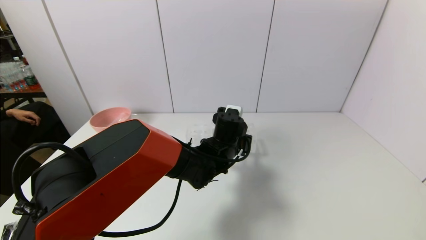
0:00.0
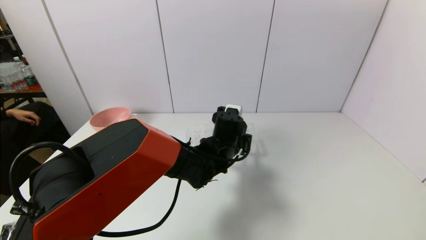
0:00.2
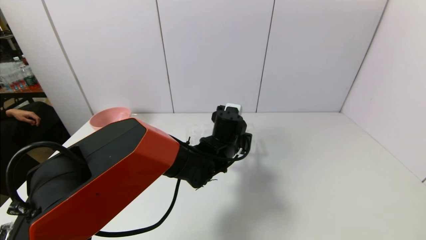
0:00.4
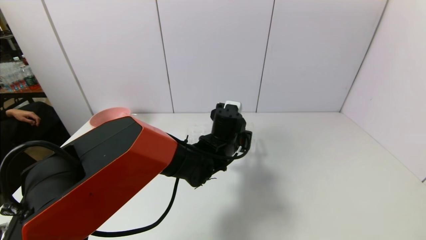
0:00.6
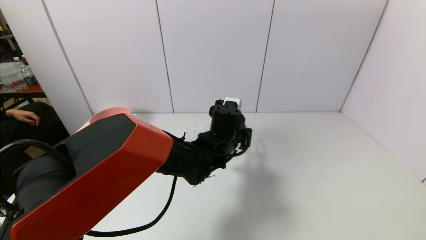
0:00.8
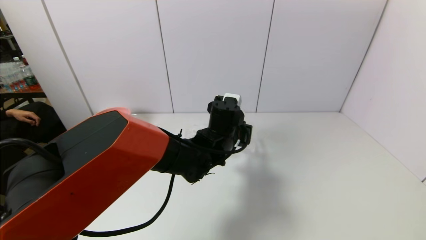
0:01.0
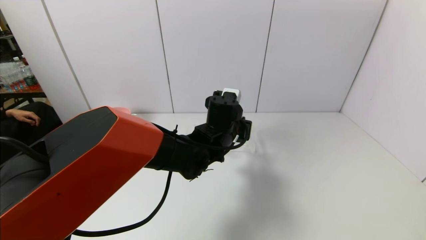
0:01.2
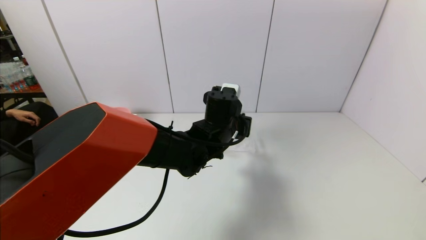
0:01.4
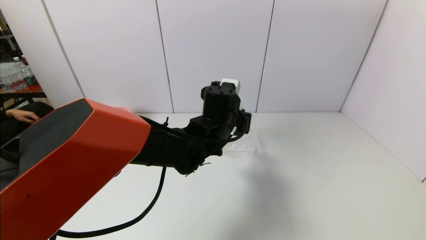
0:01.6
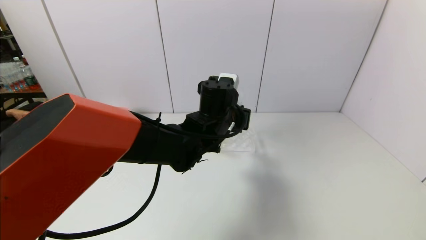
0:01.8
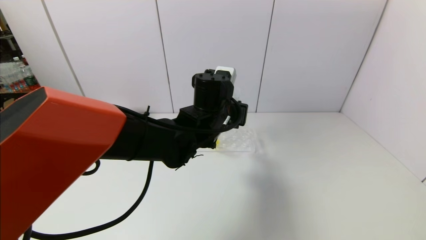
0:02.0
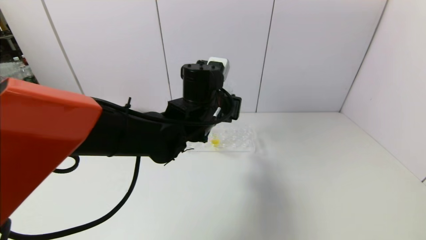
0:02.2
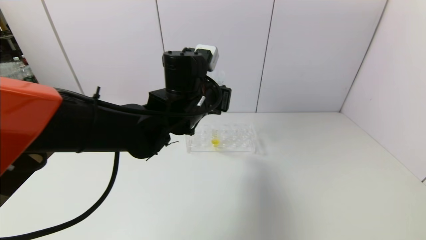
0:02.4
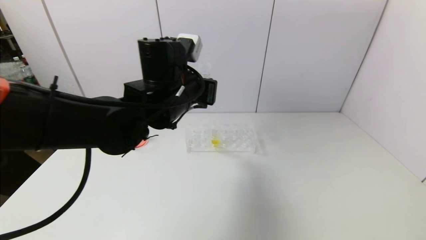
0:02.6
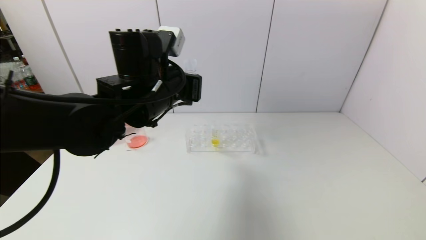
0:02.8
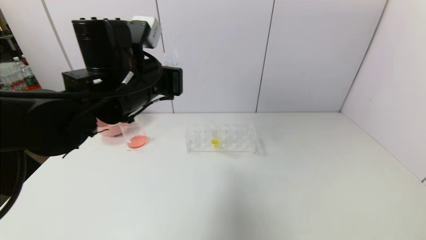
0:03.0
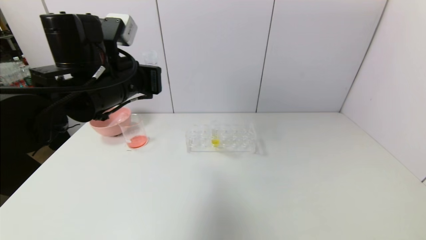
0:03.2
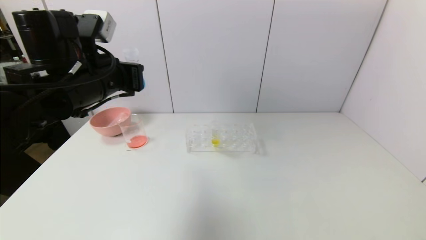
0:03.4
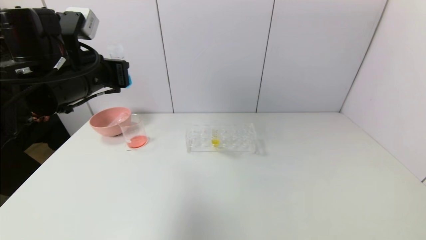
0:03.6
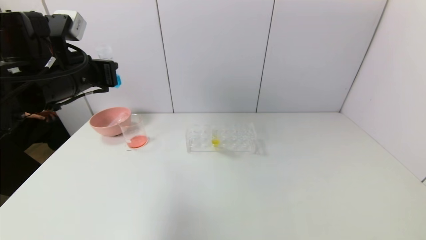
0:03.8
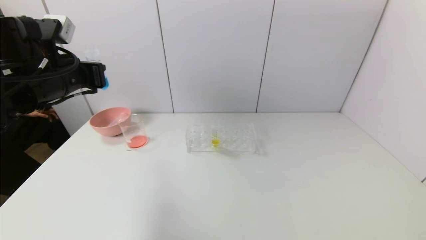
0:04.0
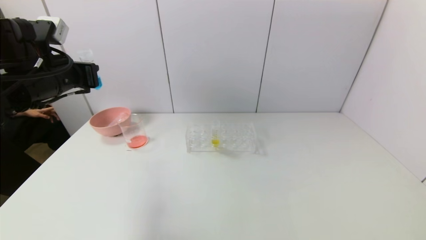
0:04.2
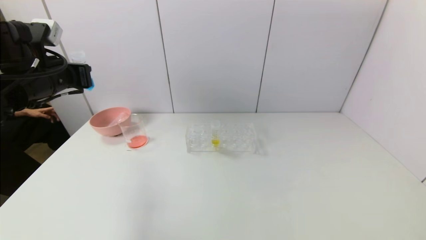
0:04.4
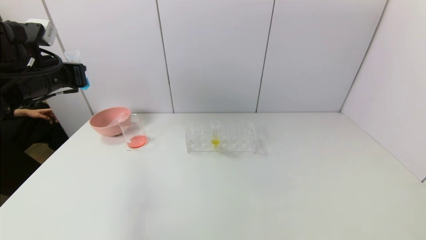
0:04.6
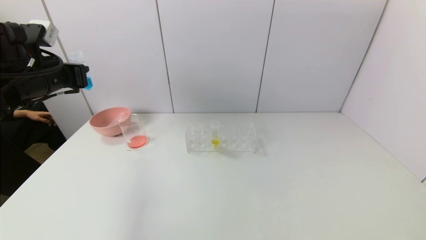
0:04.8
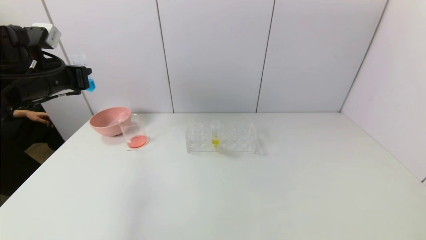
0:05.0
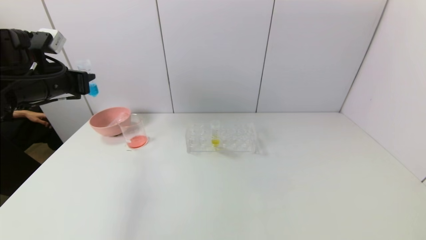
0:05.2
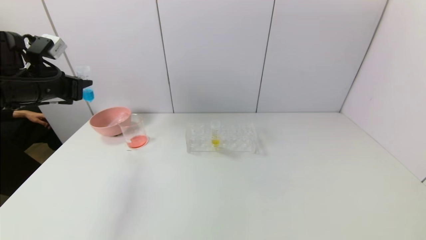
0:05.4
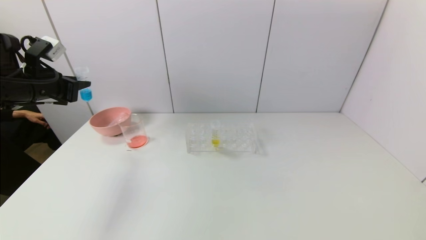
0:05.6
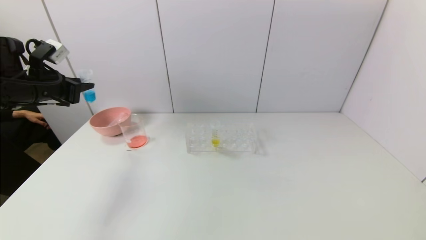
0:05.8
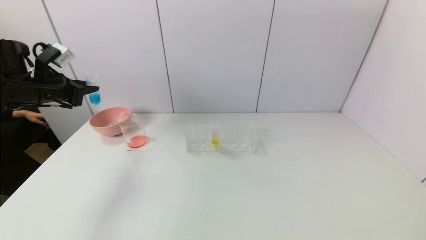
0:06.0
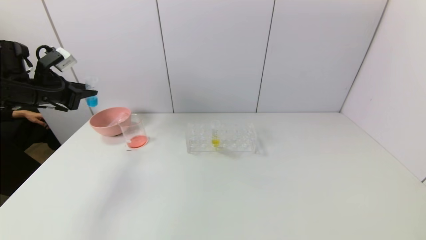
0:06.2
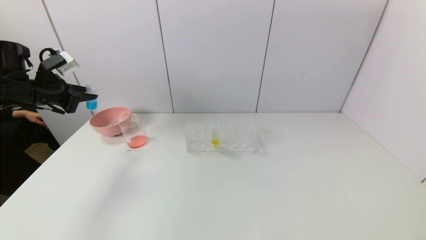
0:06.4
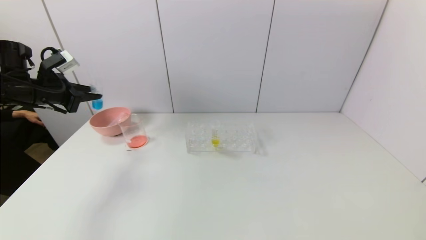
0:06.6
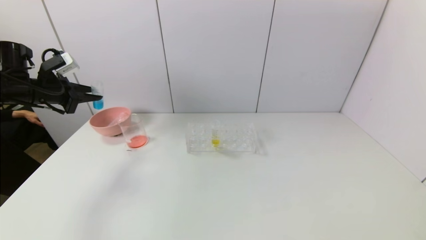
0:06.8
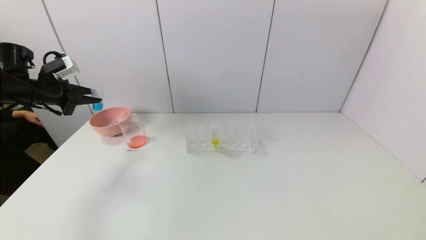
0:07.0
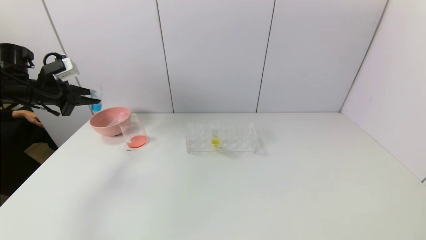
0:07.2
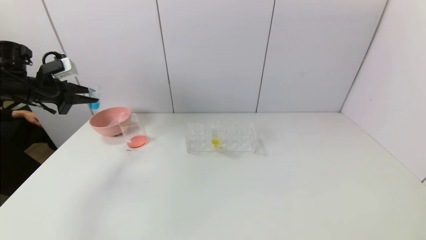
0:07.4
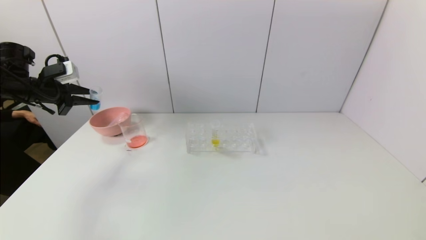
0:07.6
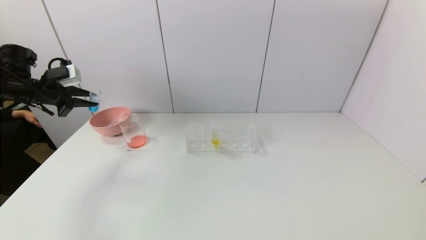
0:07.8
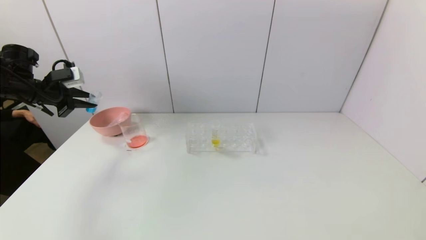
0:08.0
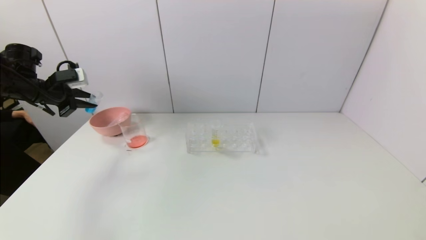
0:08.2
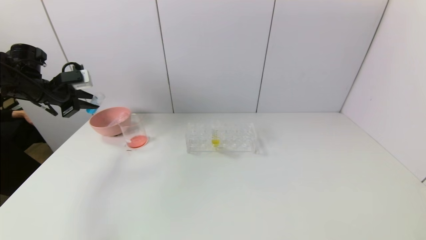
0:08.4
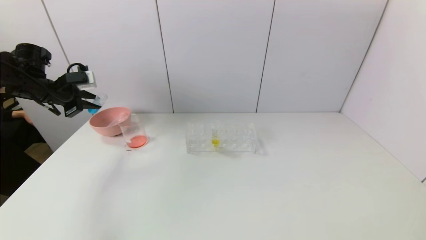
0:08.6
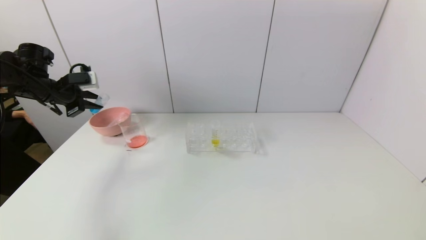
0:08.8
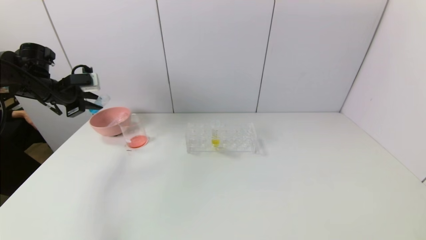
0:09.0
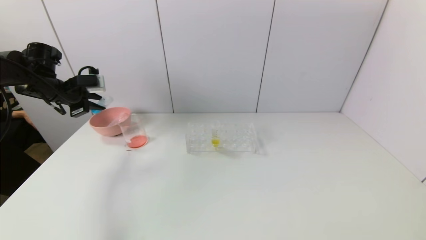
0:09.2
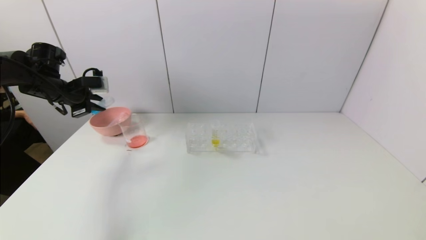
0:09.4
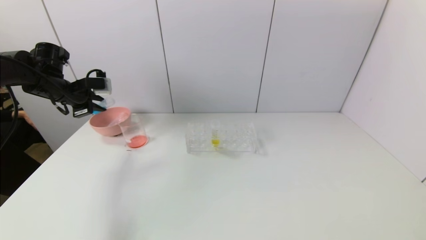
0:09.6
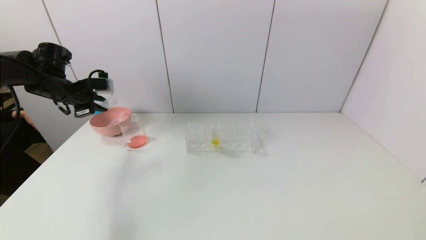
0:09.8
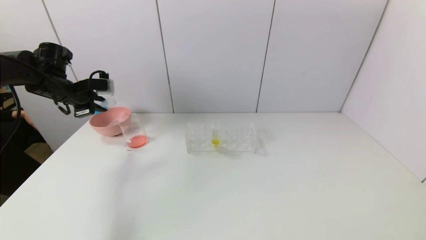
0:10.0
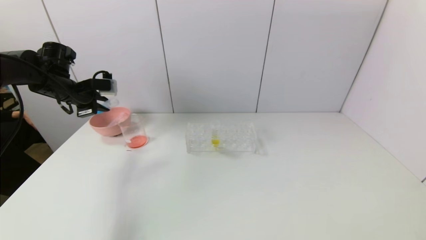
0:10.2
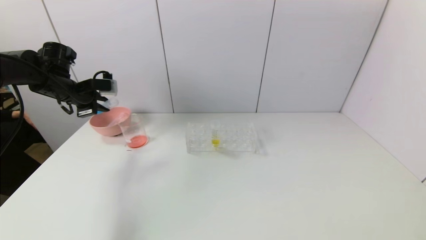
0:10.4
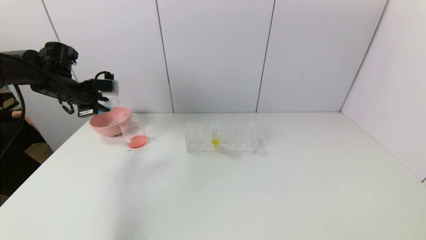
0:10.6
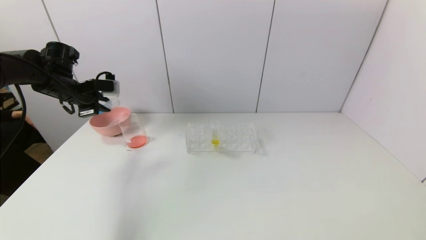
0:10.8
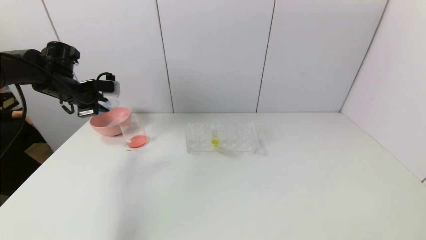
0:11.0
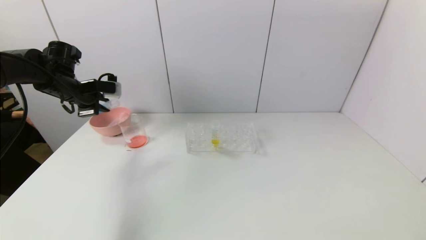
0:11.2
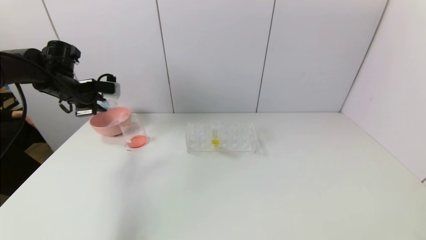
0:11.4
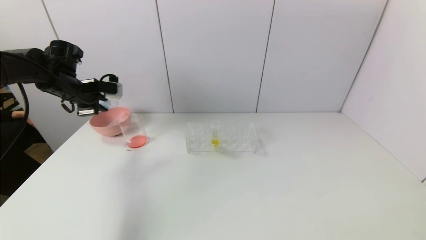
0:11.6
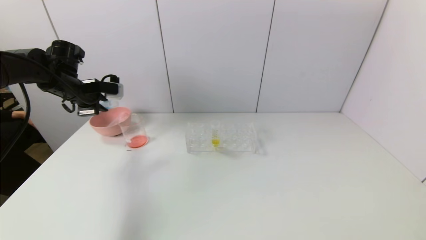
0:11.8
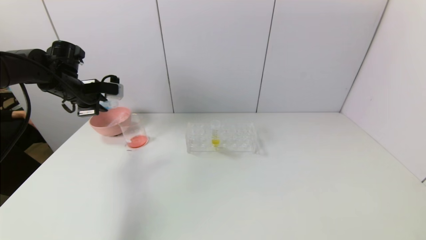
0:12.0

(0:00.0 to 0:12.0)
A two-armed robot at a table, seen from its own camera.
Task of the whole recording: pick up the test tube with red pigment and the test tube with blue pigment by grippers and pour them into the container.
0:00.0 - 0:01.6: The left gripper heads upward, covering roughly 5 cm.
0:01.6 - 0:03.0: The left gripper is displaced to the left and upward by about 20 cm.
0:03.0 - 0:04.4: The left gripper is displaced to the left by approximately 20 cm.
0:04.4 - 0:06.0: The left gripper goes roughly 10 cm to the left.
0:06.0 - 0:07.6: The left gripper moves about 5 cm.
0:07.6 - 0:09.0: There are only small adjustments of the grippers.
0:09.0 - 0:12.0: The grippers make only small movements.

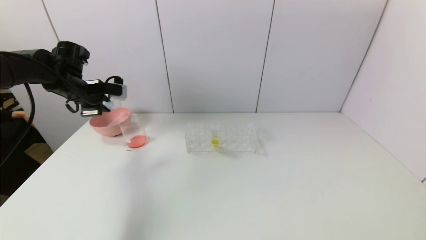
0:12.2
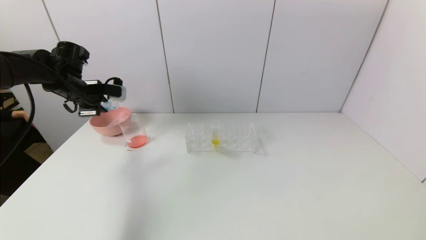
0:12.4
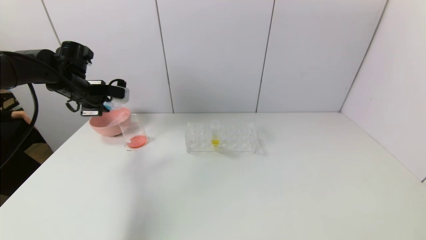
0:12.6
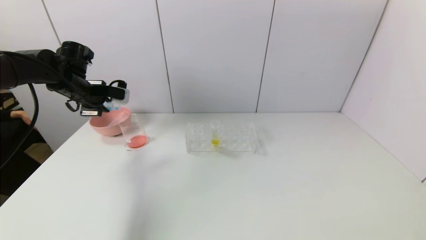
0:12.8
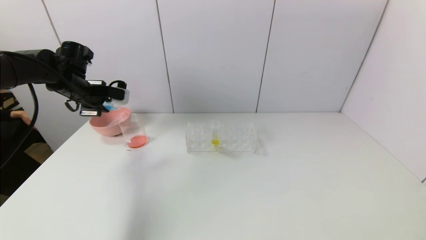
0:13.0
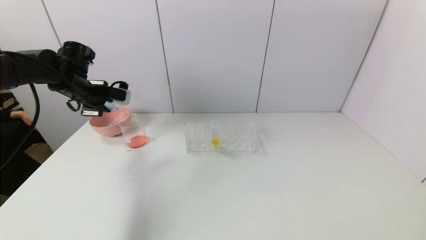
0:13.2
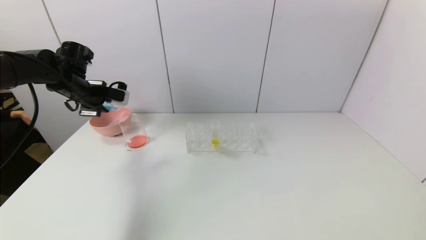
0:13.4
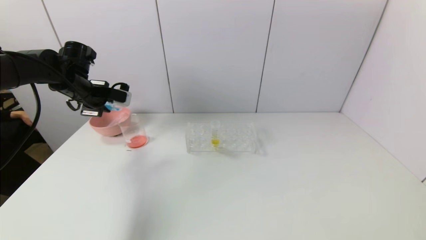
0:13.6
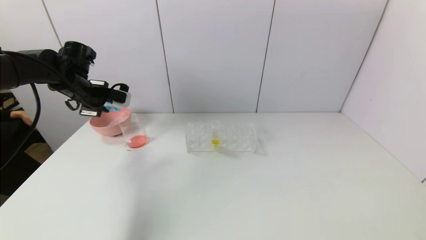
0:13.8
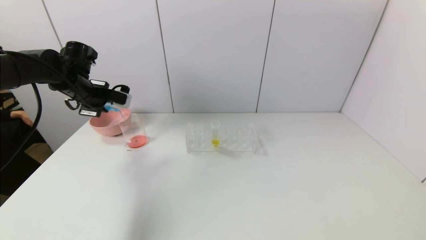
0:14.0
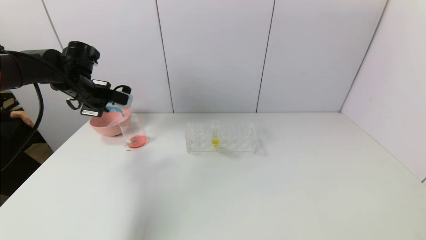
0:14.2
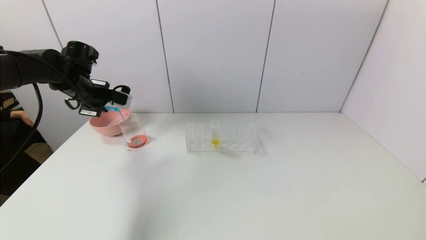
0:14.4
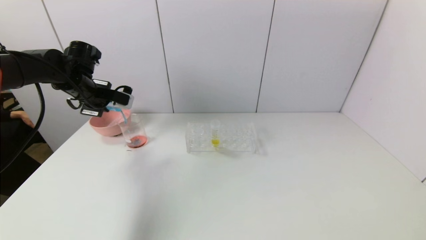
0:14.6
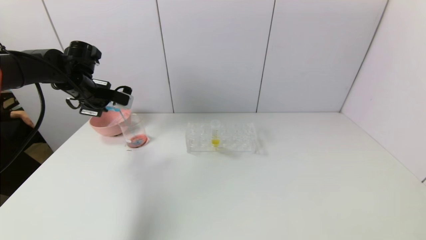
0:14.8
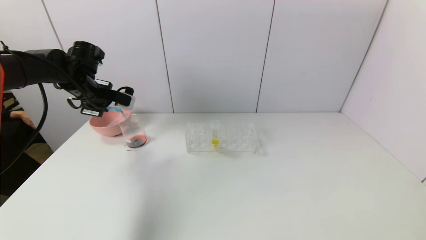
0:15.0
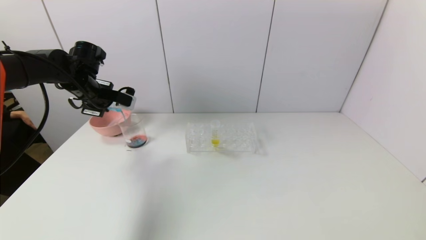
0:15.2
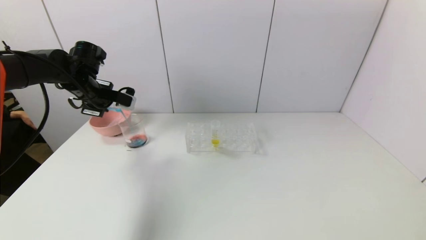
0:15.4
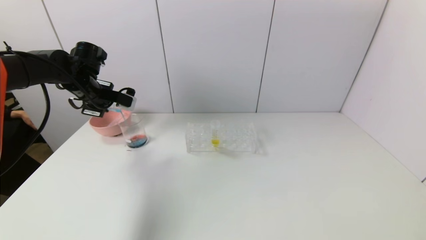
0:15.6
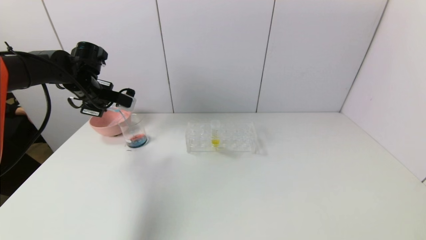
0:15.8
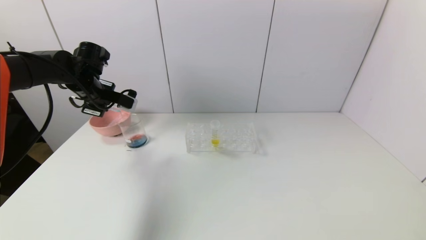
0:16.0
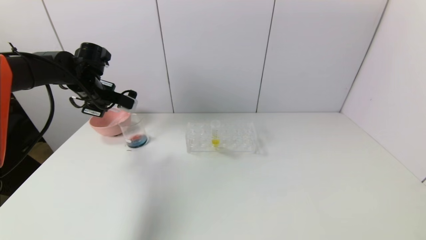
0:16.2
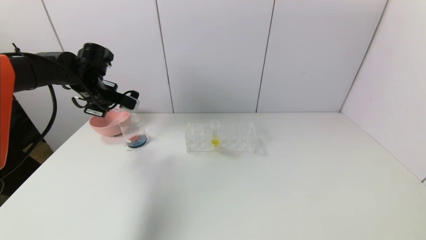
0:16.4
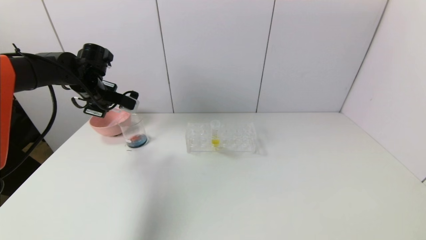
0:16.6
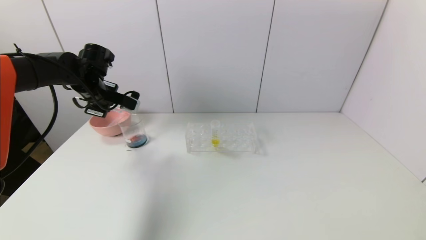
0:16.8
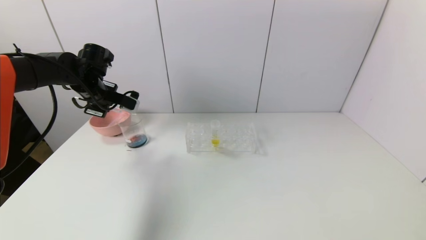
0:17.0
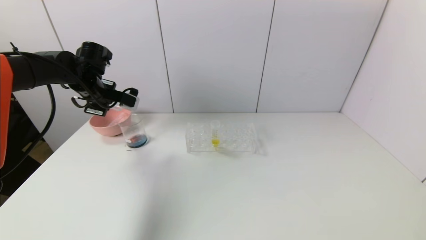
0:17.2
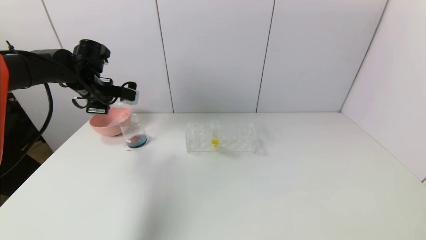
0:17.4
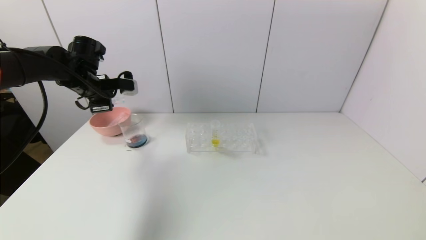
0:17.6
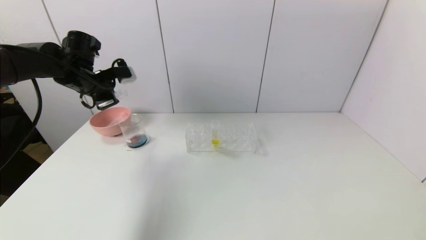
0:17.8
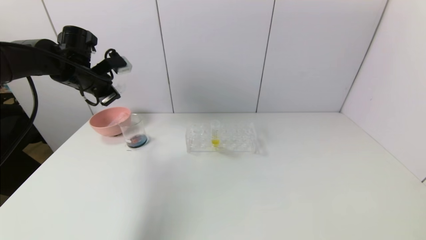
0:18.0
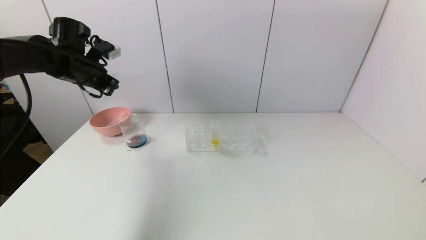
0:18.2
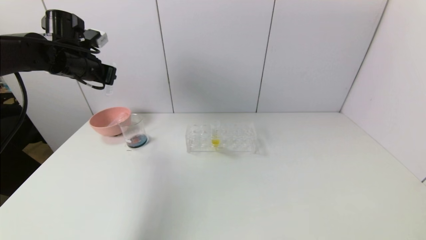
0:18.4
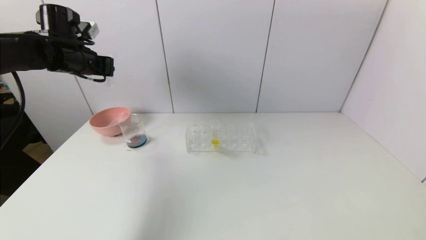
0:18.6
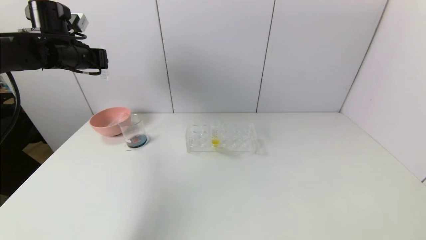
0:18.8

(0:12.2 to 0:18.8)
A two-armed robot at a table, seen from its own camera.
Task of the whole recording: pick up the test tube with red pigment and the test tube with blue pigment by grippers and pour them into the container.
Step, 0:12.2 - 0:17.8: Pour the blue reagent into the graduated cylinder with the left gripper.
0:12.2 - 0:13.8: The grippers stay close to where they were, moving slightly.
0:13.8 - 0:17.2: The grippers stay close to where they were, moving slightly.
0:17.2 - 0:18.8: The left gripper travels upward by some 10 cm.
